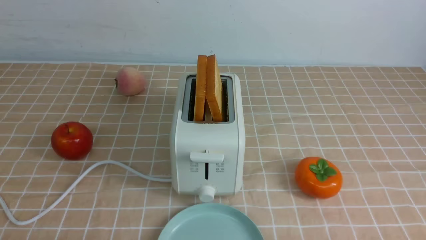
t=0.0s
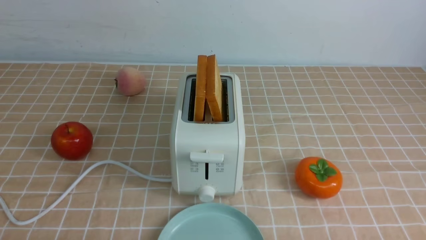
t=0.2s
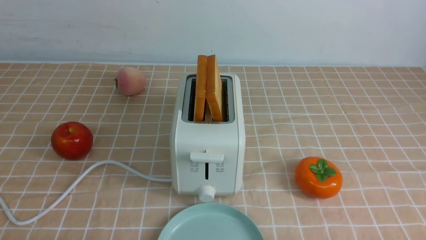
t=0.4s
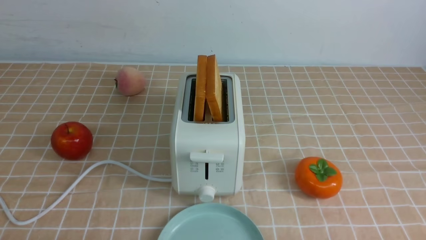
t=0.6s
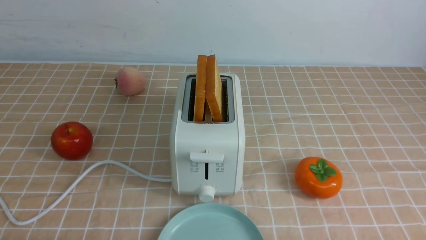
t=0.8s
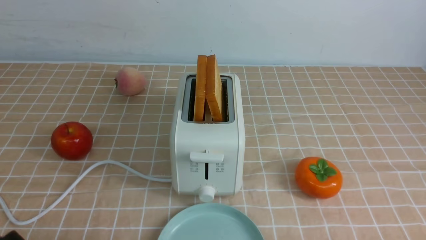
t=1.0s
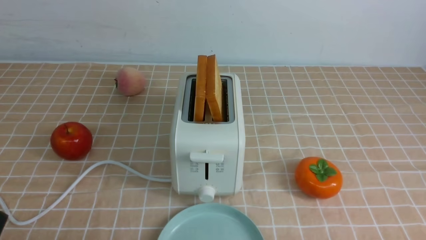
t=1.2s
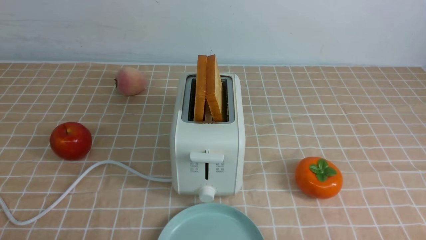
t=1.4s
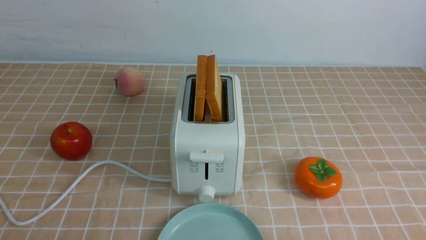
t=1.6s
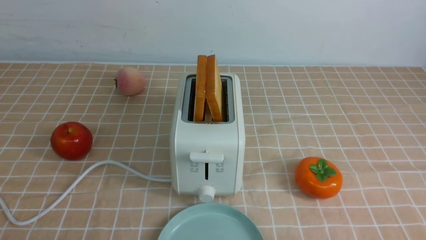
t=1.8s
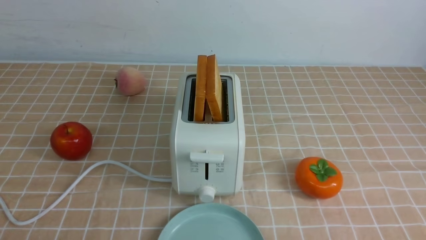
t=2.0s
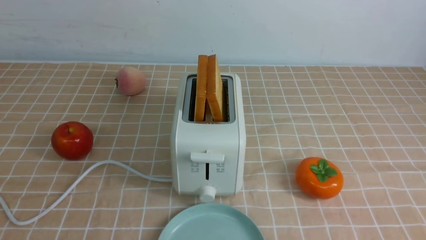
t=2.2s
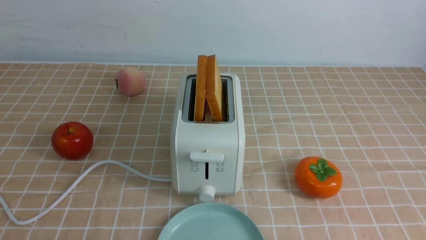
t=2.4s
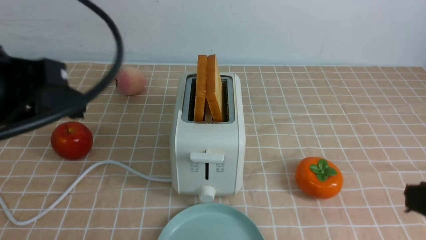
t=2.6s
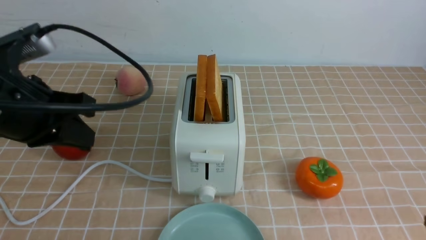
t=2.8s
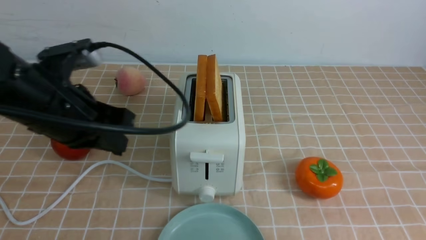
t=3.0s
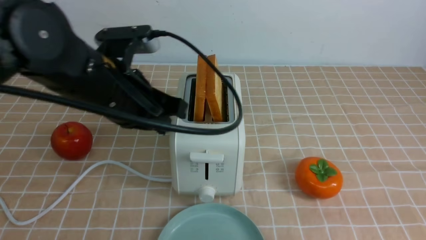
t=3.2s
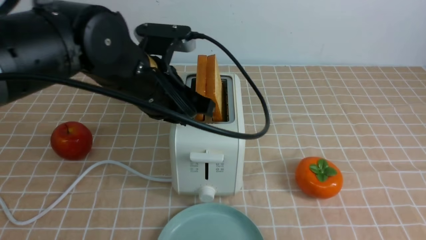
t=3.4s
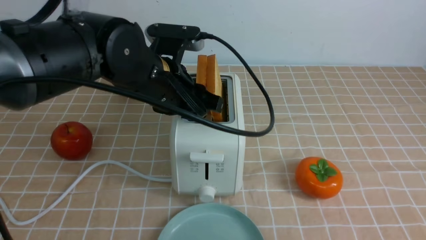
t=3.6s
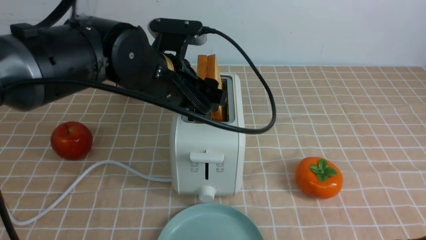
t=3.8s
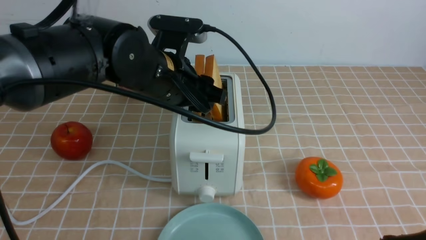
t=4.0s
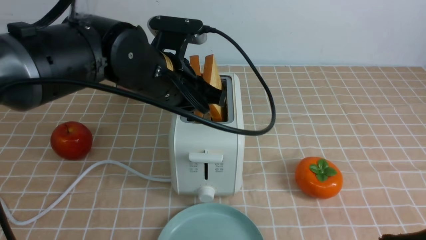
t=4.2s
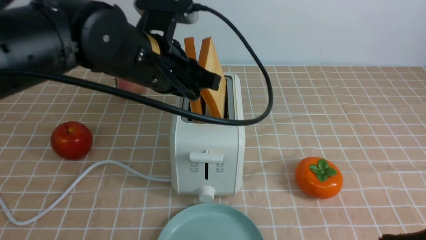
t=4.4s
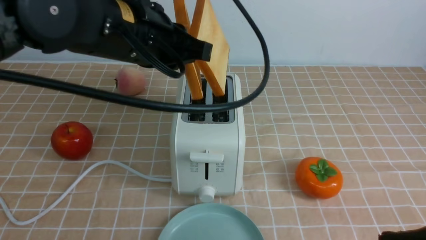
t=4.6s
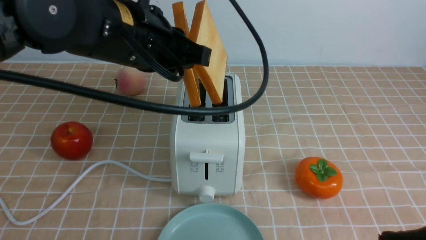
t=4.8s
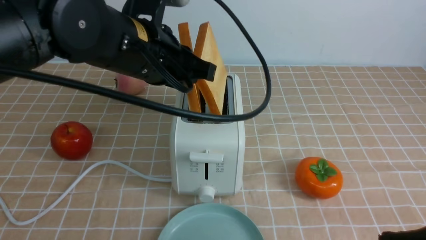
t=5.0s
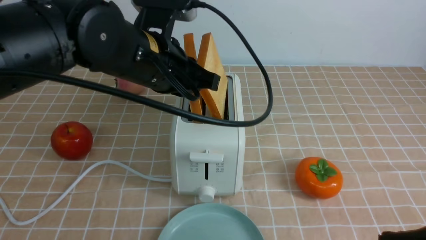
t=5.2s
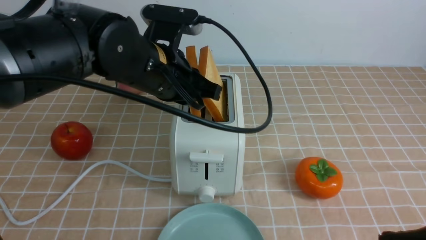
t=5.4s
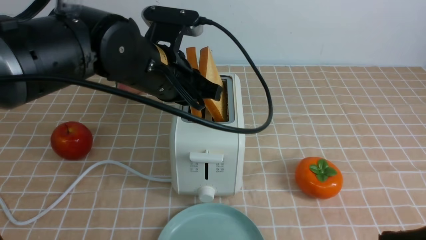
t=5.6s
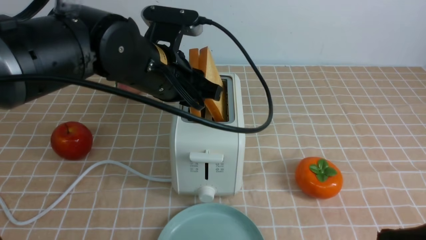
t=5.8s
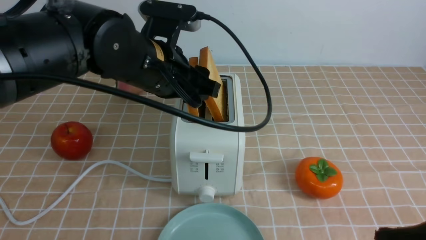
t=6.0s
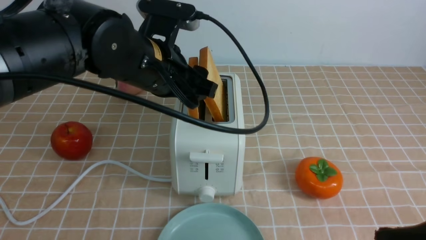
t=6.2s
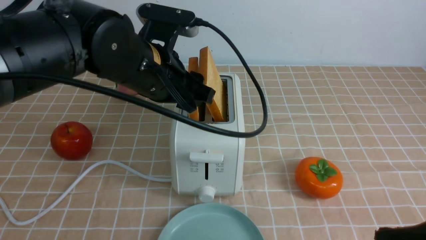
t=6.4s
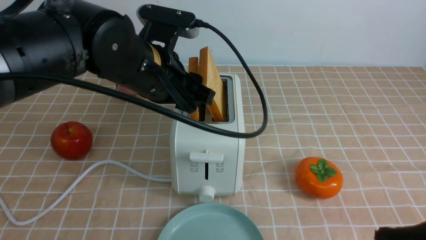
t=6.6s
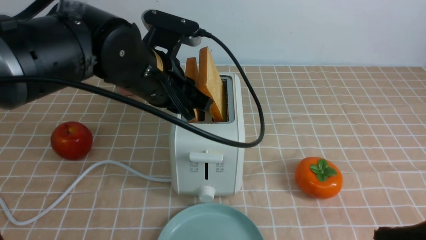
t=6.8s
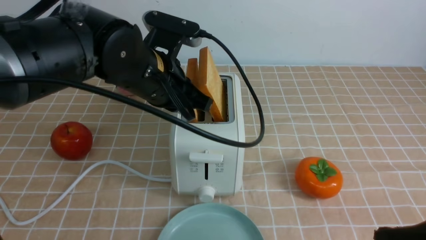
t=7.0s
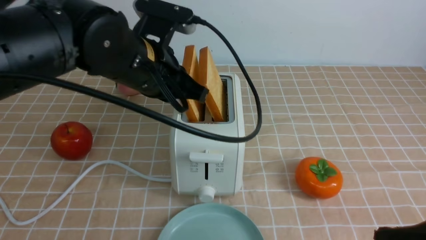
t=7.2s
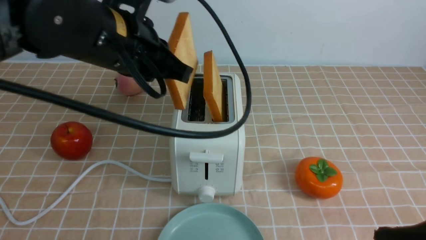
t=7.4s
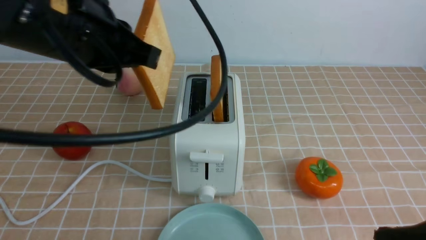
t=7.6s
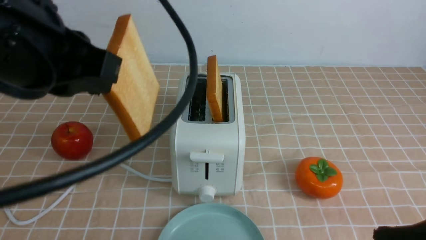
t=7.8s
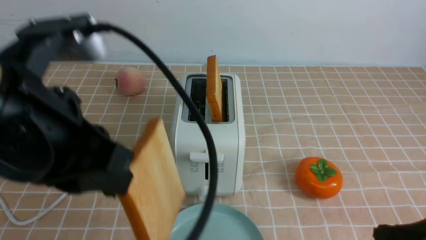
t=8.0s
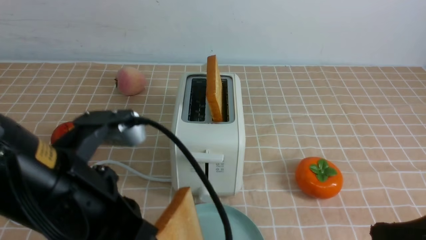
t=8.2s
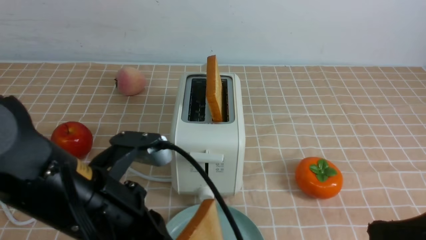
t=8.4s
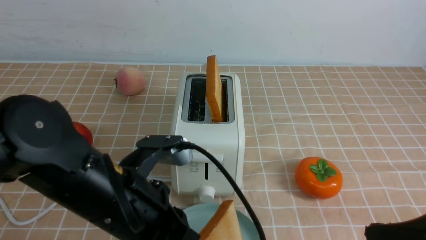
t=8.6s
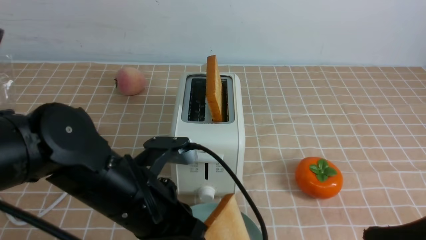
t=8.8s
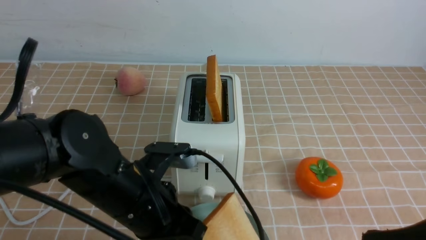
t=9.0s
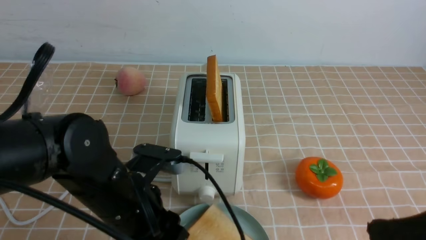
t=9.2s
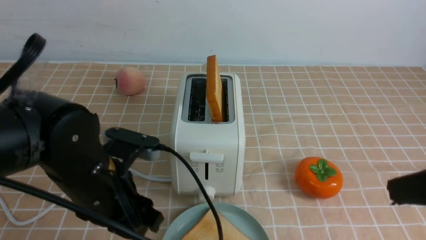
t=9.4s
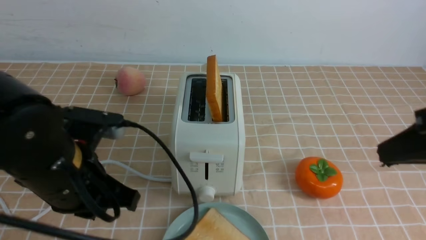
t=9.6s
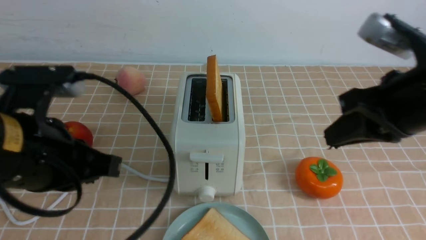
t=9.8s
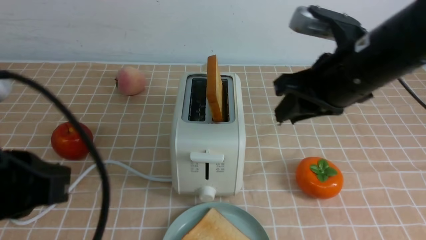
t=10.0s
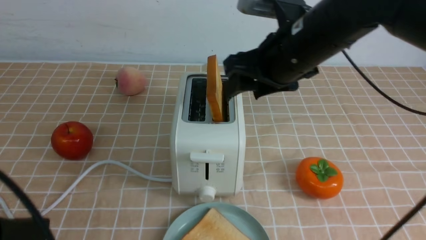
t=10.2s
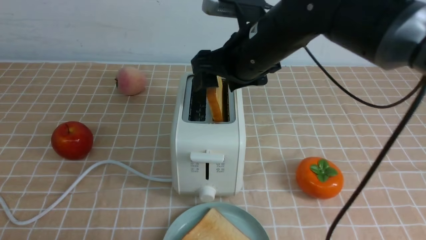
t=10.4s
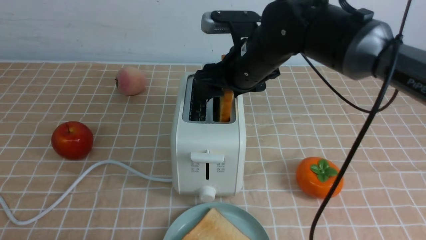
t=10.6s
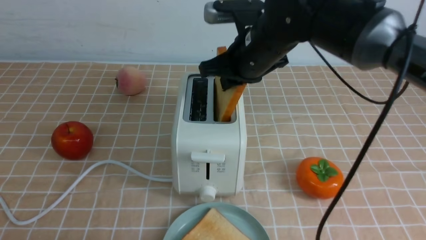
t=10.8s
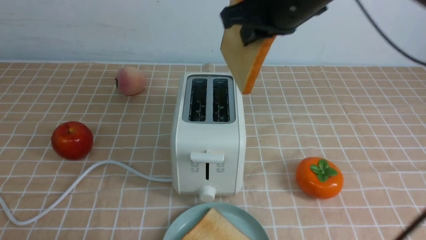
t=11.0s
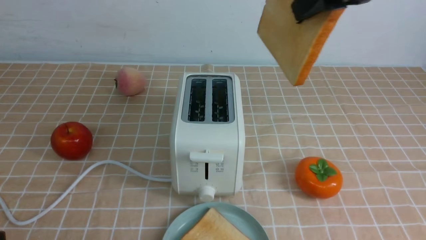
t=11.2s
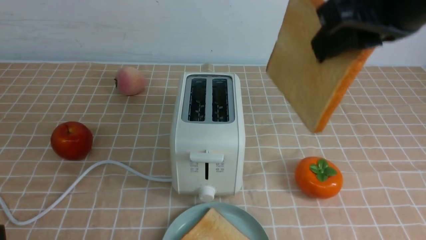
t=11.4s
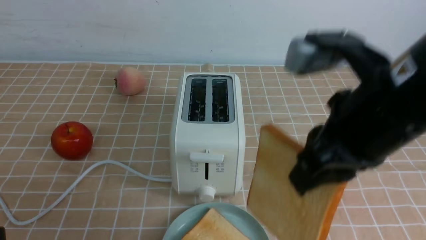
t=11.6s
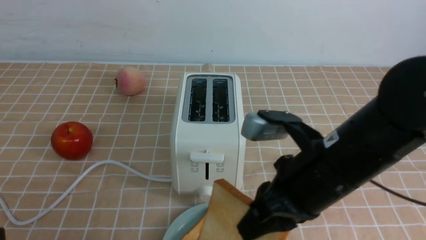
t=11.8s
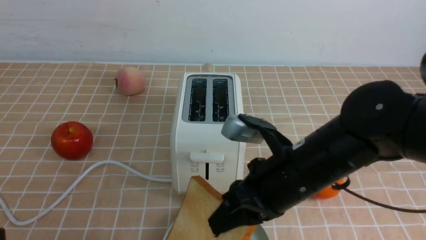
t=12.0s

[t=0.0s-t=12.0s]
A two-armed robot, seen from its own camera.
Task of the whole recording: take toasted bread from bread machine on light coffee tablecloth place on plate.
Step, t=0.0s to t=7.2s: use the left arm to take out a slice of bread.
Step, t=7.4s to t=9.2s: use the left arm to put a slice of bread into the empty plate.
Step, t=9.4s to t=10.8s: use the right arm to take out a slice of bread.
t=1.6s to t=3.0s: The left gripper moves forward, upward and to the right, approximately 25 cm. Meanwhile the right gripper heads upward and forward, covering roughly 15 cm, and closes its fingers.
t=3.0s to t=4.4s: The left gripper shifts approximately 10 cm to the right, and opens, then closes again.
t=4.4s to t=6.0s: The left gripper opens its fingers.
t=6.0s to t=7.6s: The left gripper shifts roughly 15 cm backward, upward and to the left, and closes up.
t=7.6s to t=9.0s: The left gripper travels downward by about 20 cm, and opens up.
t=9.0s to t=10.4s: The right gripper is displaced forward and to the left by about 30 cm, and opens up. The left gripper is displaced backward and to the left by about 20 cm, and closes.
t=10.4s to t=12.0s: The right gripper shifts approximately 15 cm backward and downward, and closes its fingers.

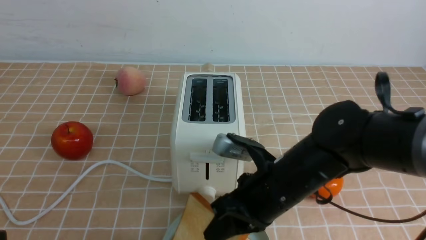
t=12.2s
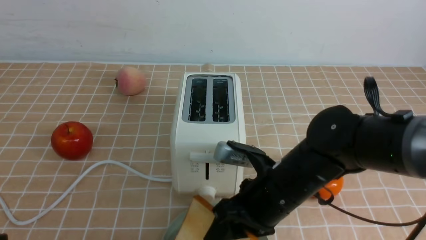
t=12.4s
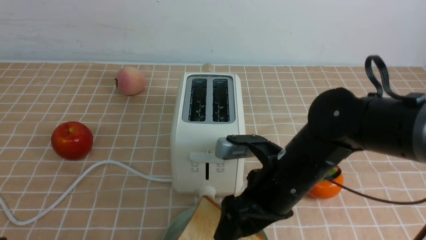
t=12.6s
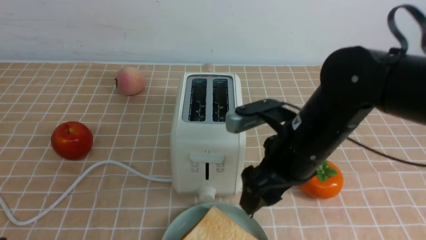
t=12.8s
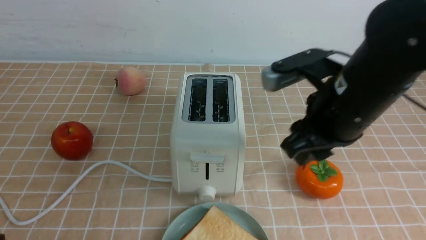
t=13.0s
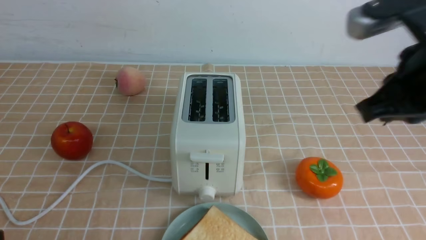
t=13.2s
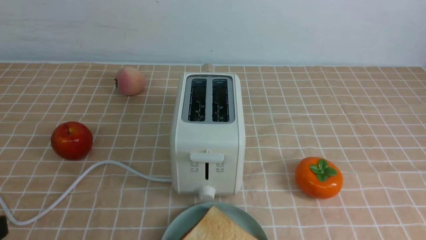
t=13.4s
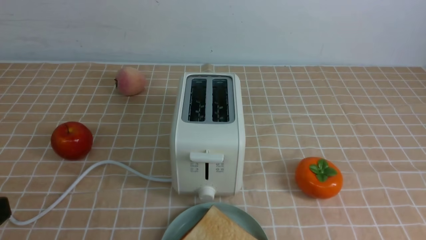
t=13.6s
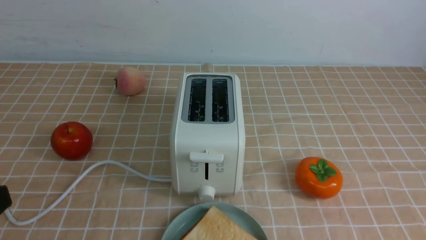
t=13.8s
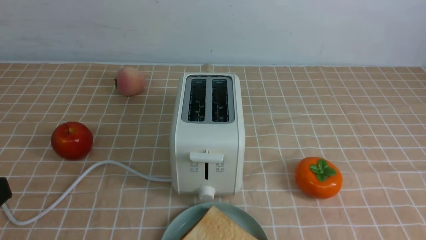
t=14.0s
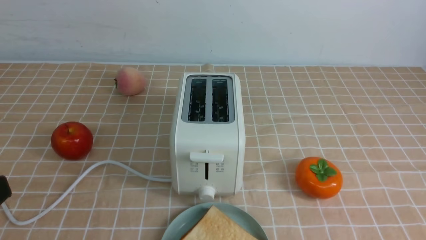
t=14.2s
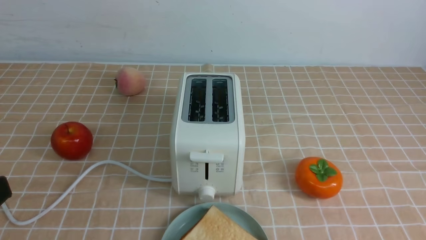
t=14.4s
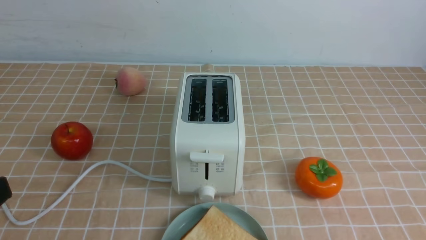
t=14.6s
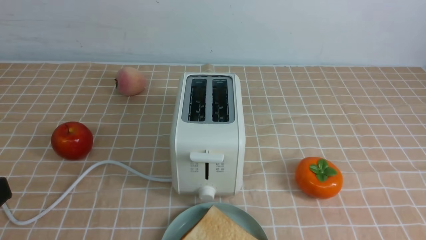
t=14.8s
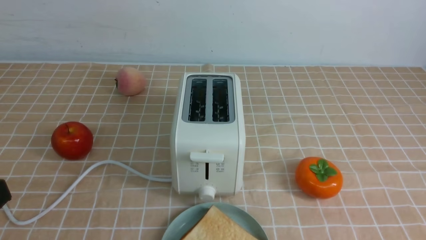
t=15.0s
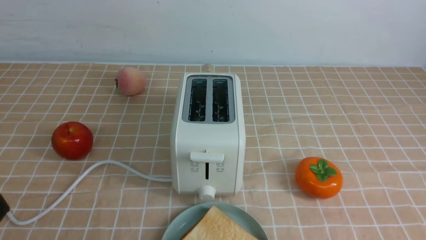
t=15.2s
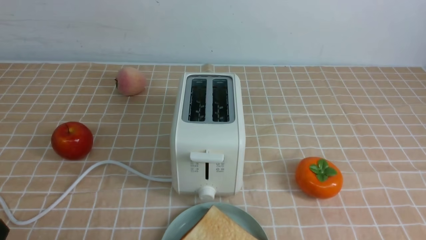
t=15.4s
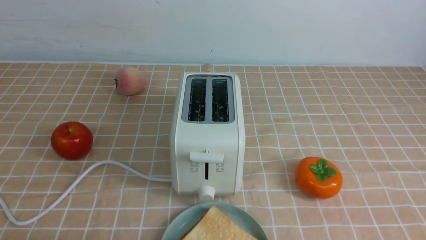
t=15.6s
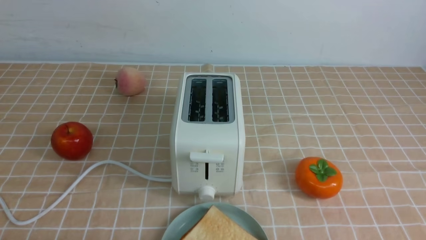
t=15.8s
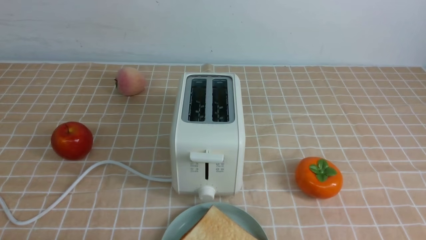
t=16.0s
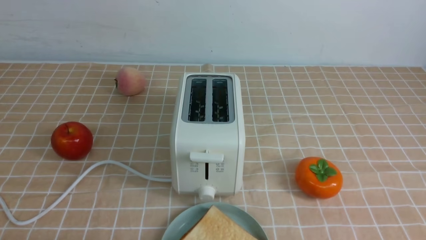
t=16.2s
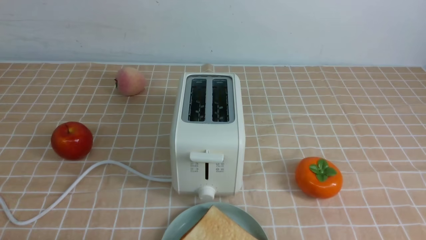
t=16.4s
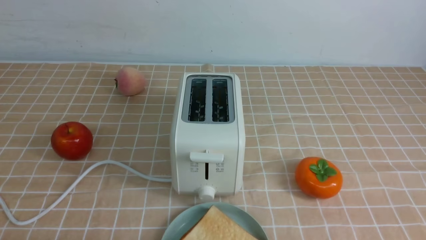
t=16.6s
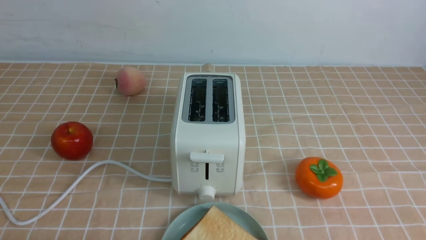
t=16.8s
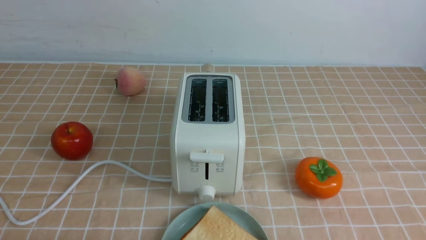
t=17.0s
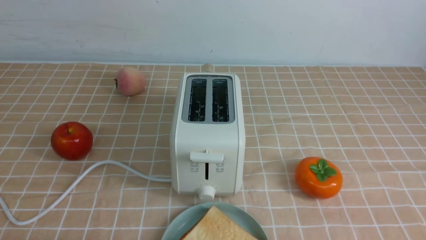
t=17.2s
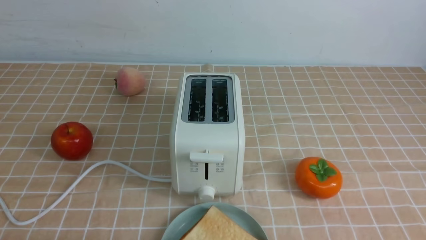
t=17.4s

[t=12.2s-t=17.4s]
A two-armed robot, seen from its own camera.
Task of the whole recording: take toasted bread from bread machine on light coffee tablecloth place on plate.
t=12.2s to t=14.0s: The right gripper goes approximately 30 cm to the right and backward, and closes.
t=14.0s to t=15.6s: The left gripper moves downward, about 15 cm.
